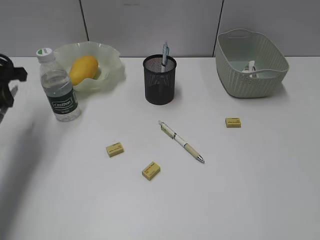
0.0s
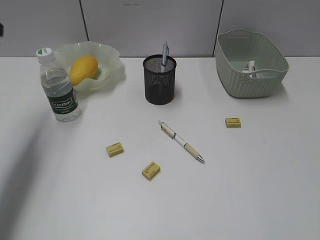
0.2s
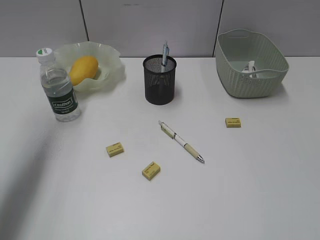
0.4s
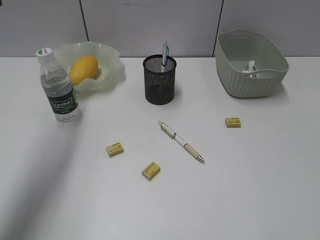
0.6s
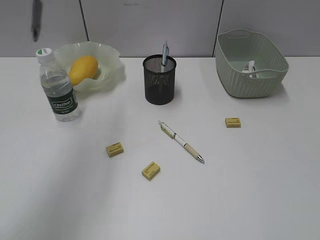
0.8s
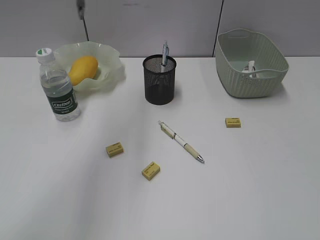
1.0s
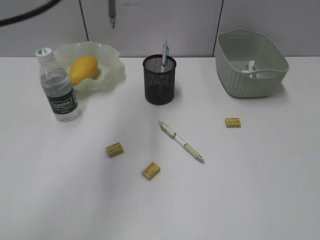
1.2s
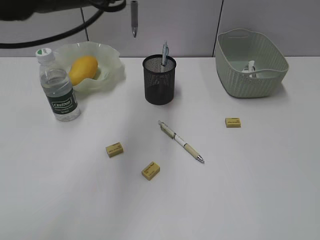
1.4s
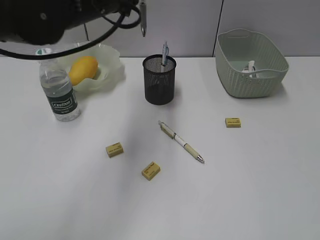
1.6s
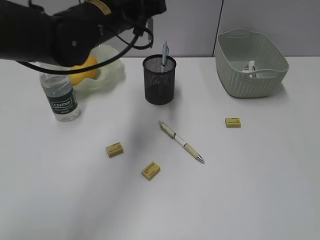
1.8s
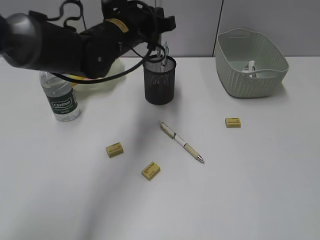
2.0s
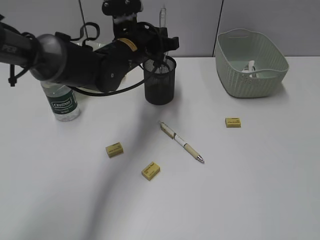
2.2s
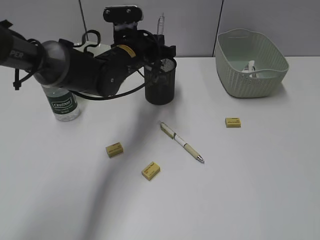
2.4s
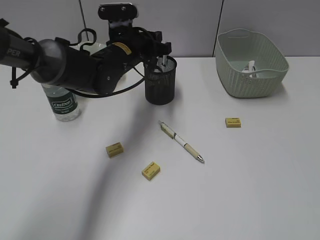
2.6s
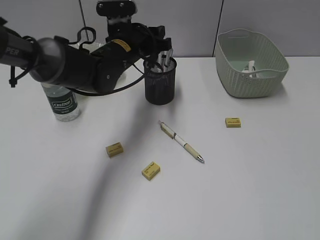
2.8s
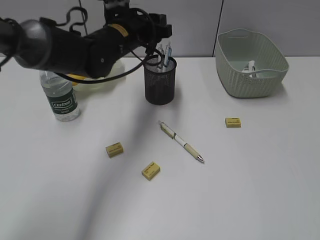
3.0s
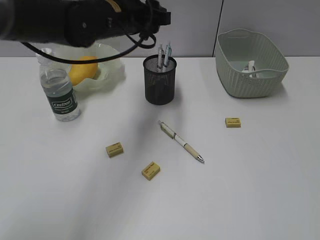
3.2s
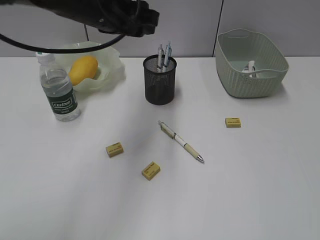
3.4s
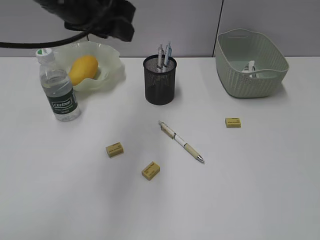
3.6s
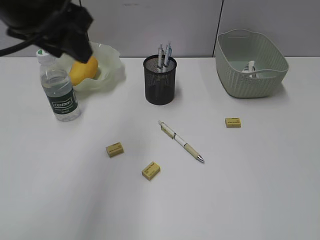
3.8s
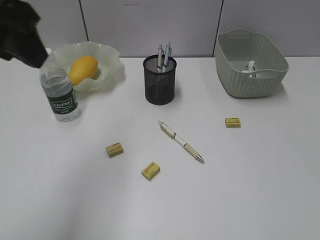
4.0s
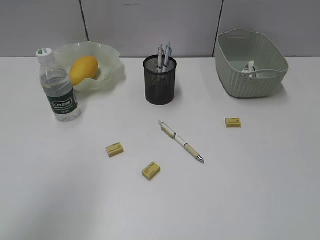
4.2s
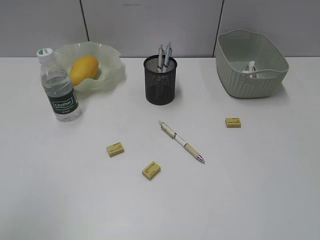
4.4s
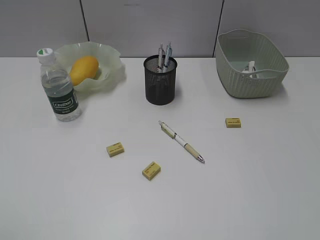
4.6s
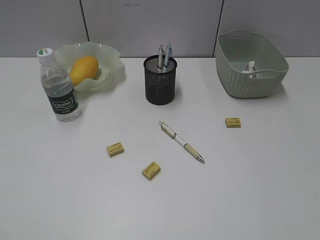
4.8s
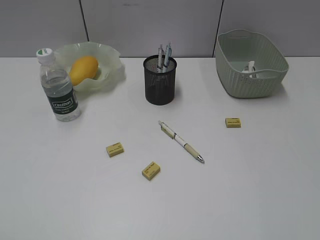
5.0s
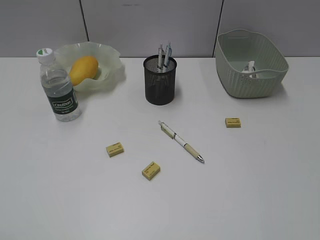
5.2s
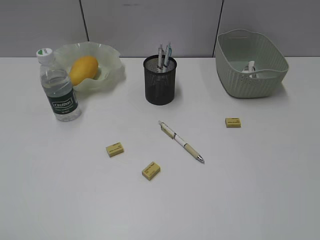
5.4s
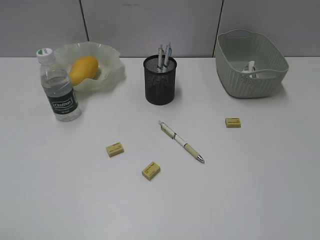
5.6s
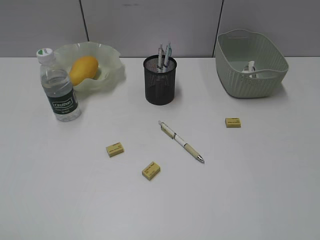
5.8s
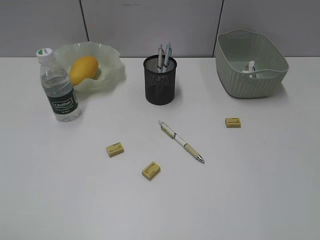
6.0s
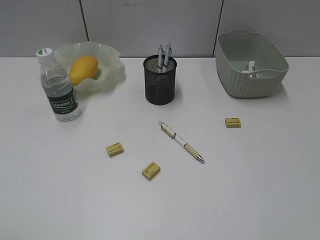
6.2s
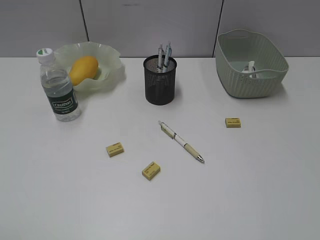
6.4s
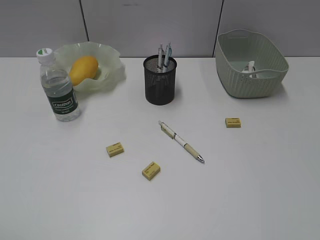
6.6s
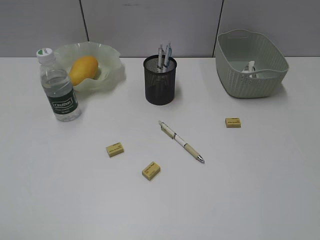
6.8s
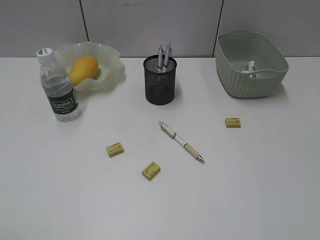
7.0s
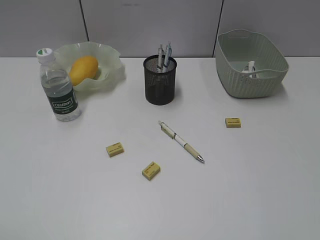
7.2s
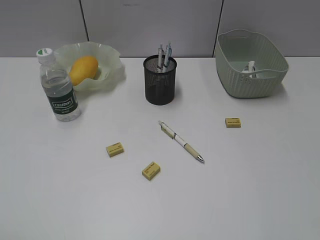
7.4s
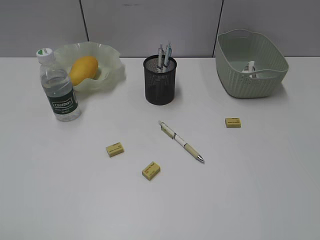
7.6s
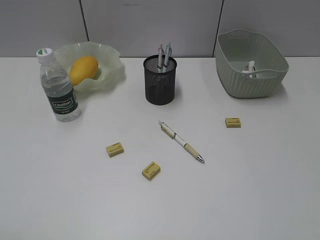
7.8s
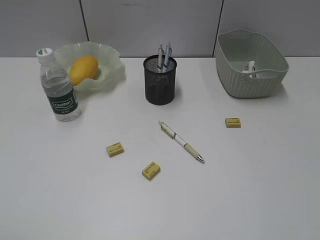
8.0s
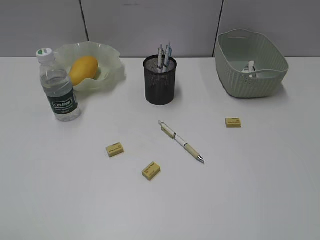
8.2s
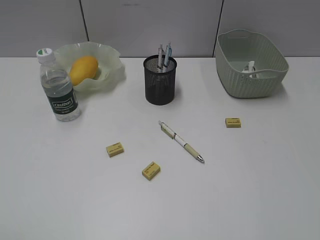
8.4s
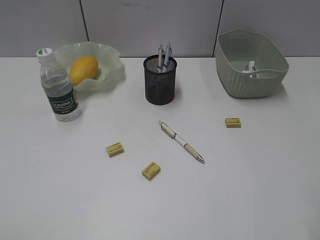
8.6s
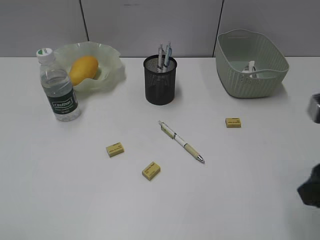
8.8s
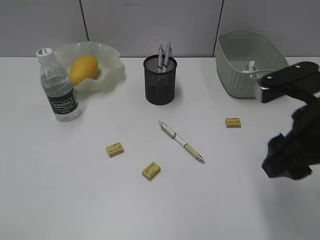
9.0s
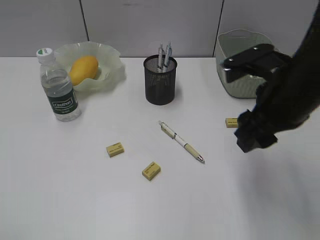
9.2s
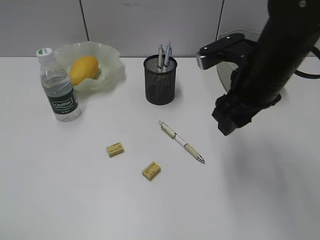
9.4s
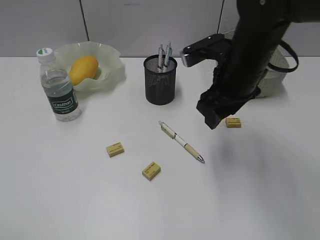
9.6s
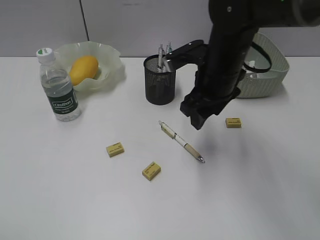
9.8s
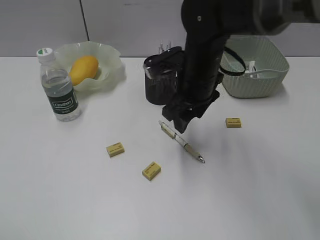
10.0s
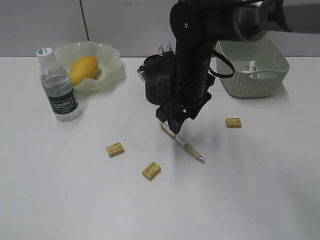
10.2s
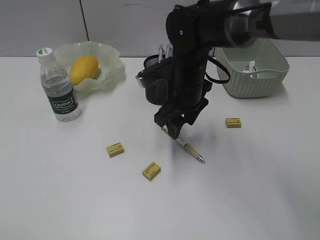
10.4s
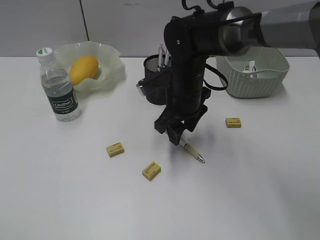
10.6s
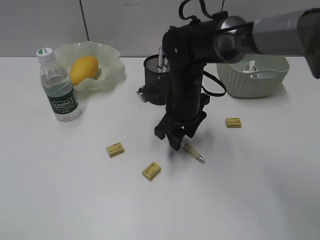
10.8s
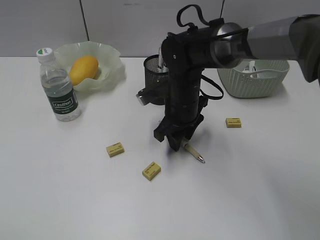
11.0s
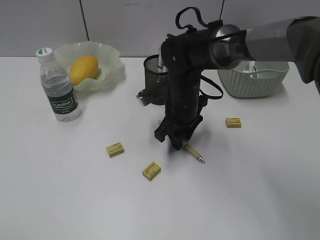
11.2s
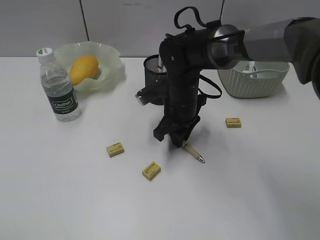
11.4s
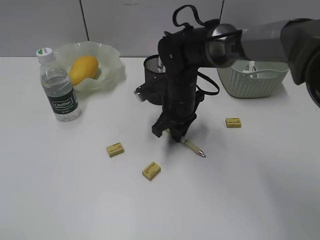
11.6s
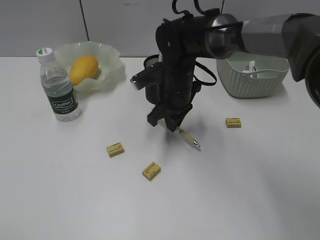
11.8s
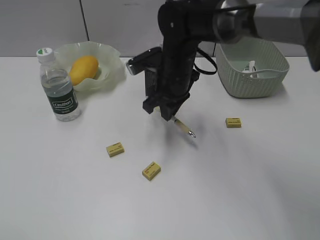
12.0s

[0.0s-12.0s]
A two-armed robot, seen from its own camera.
Step, 0.0s to 2.8s: Place the gray pen in pen holder with left gripper.
Step, 3.0s to 11.6s: Grasp the yellow pen with right gripper.
0.0s to 1.6s: The left gripper shifts approximately 20 cm to the right.
1.6s to 3.0s: The left gripper shifts about 10 cm downward and forward, and opens up.
3.0s to 4.4s: The left gripper is displaced backward, to the left and upward by about 50 cm.
6.0s to 7.6s: Both grippers stay about where they are.
7.6s to 9.0s: The right gripper heads forward and to the left, covering roughly 20 cm.
9.0s to 10.4s: The right gripper travels forward, to the left and downward by approximately 25 cm.
10.4s to 12.0s: The right gripper closes.

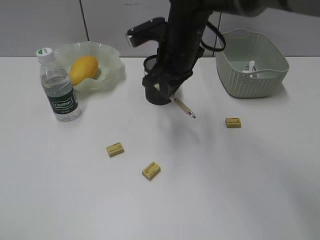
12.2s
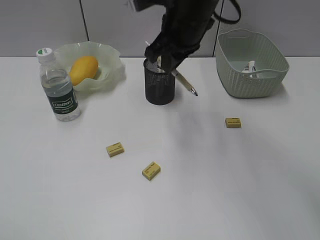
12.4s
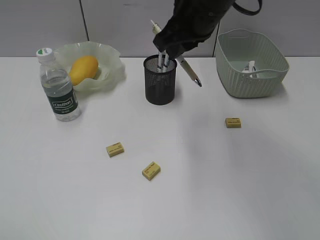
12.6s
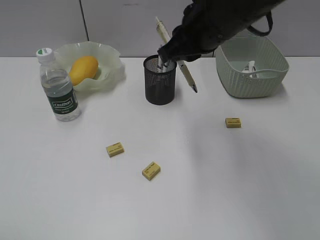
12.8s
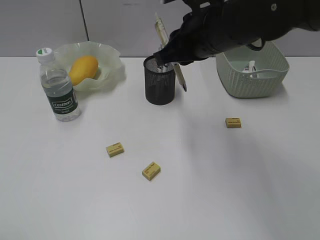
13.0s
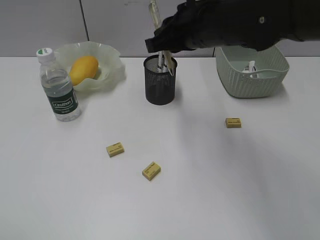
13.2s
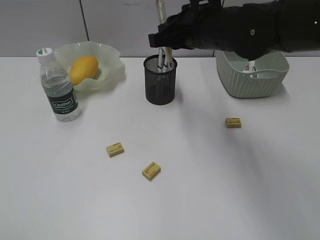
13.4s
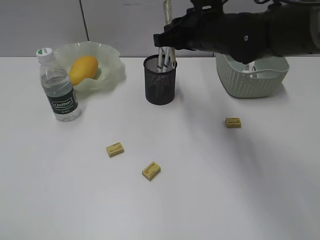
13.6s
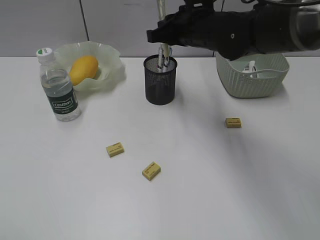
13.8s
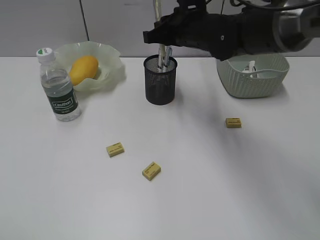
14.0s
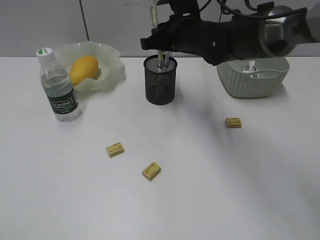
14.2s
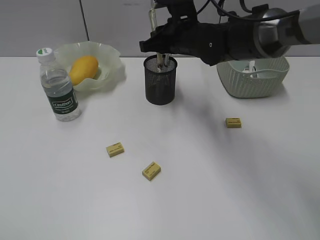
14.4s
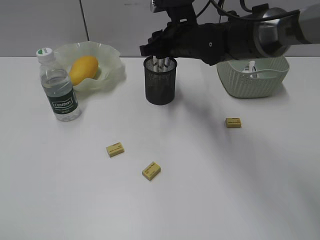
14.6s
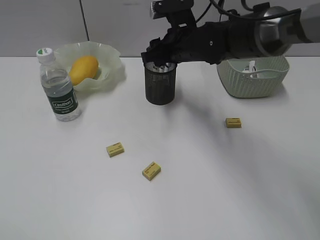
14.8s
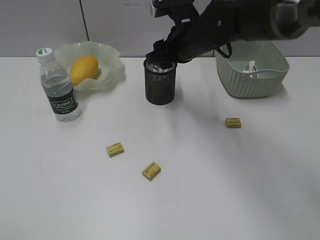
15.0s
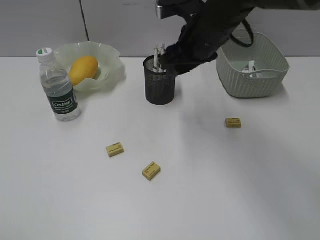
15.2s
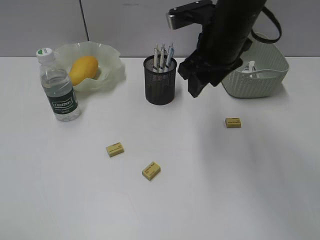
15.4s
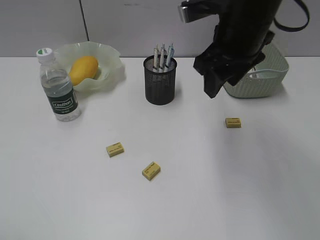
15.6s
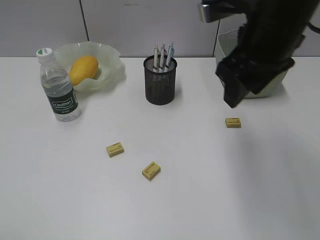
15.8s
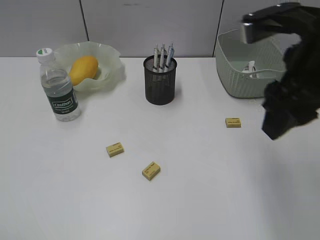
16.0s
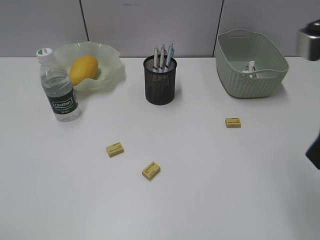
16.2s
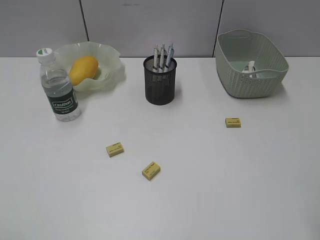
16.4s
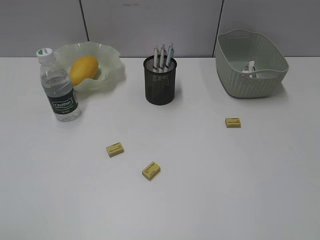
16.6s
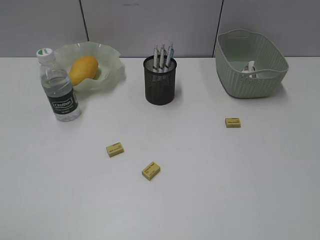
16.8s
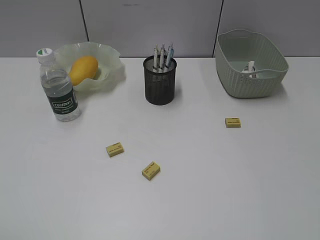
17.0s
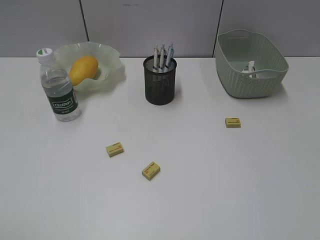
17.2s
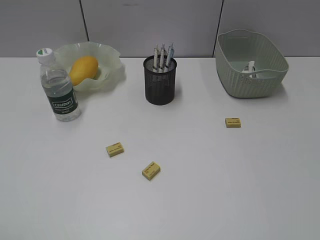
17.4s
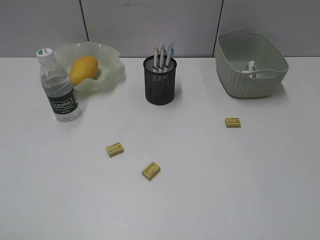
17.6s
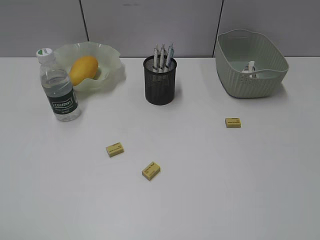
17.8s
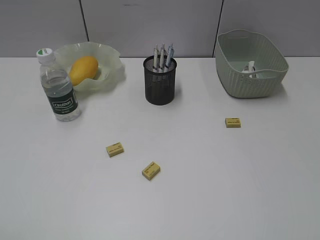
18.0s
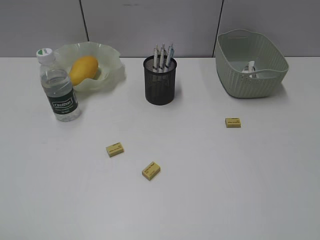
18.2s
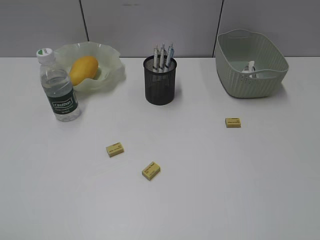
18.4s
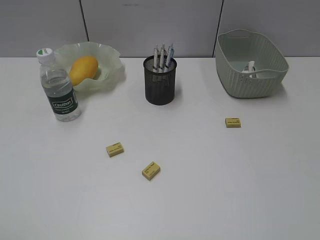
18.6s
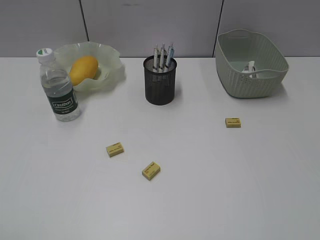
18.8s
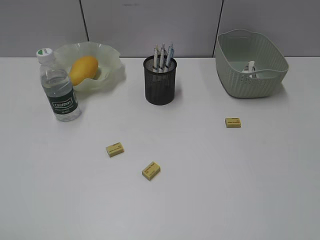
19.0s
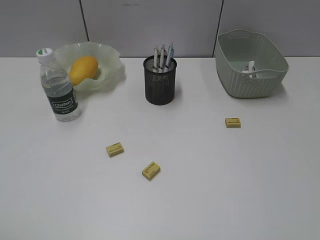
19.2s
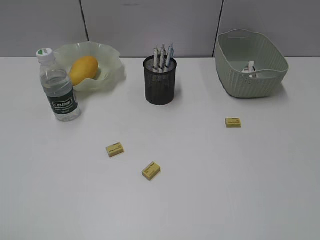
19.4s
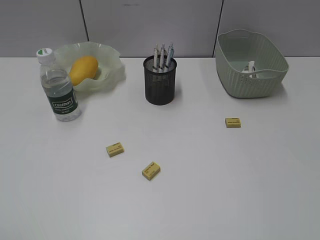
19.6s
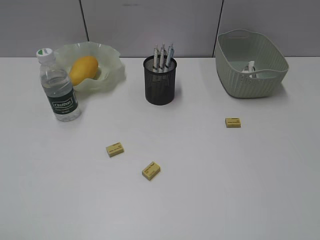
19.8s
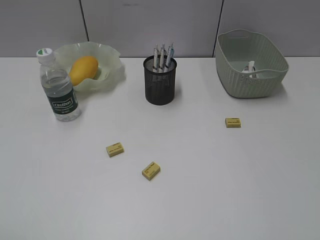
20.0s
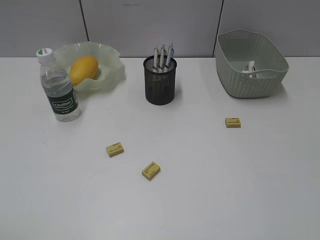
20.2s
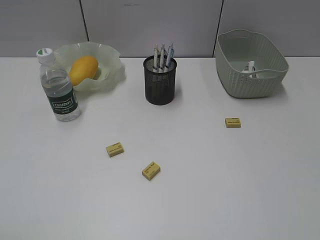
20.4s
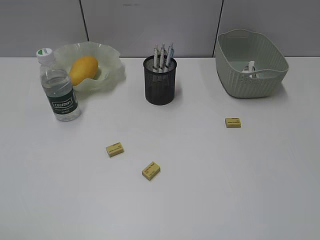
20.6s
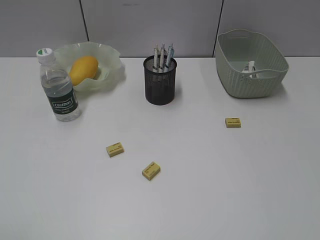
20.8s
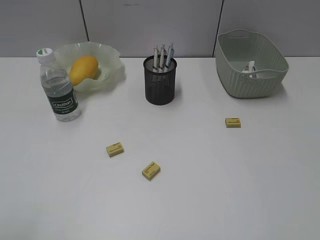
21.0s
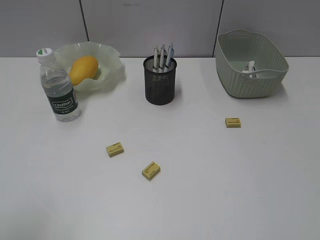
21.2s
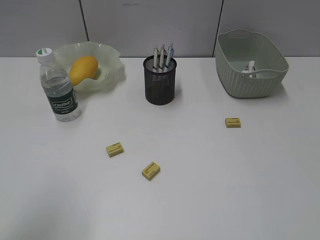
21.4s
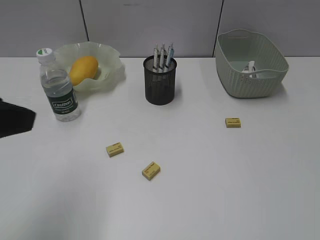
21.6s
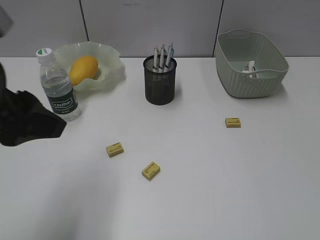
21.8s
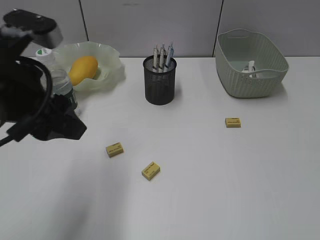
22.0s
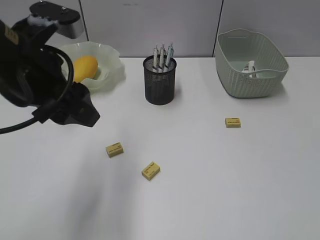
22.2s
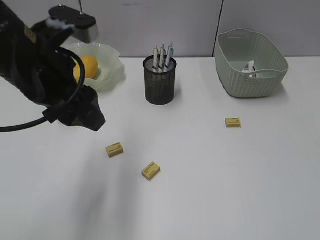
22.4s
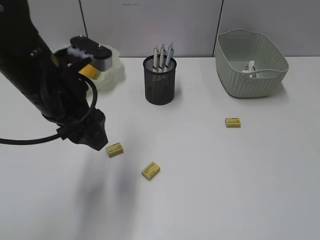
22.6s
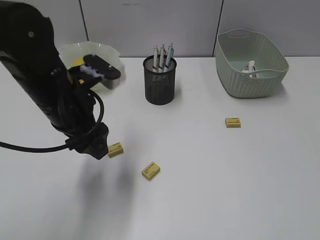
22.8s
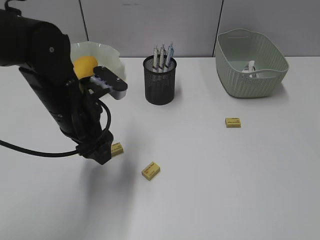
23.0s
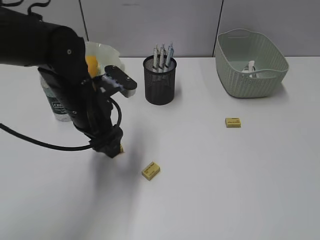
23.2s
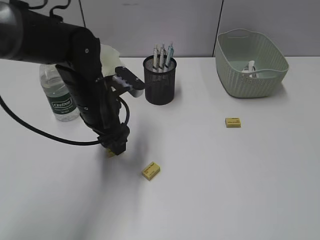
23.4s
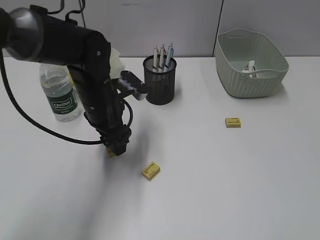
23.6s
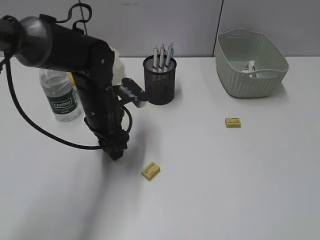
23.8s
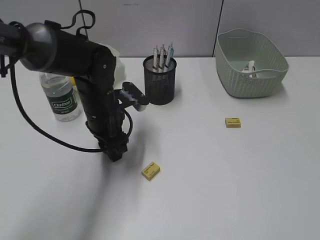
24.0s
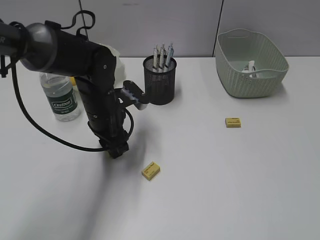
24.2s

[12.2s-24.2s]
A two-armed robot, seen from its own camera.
Step, 12.2s to 14.8s: Place the yellow pen in pen holder with right gripper.
12.2s to 13.8s: The right gripper reaches roughly 5 cm backward, then returns.
13.8s to 15.2s: The right gripper opens.
15.2s to 16.6s: The right gripper shifts about 35 cm backward and to the right.
18.2s to 19.8s: Neither gripper changes place.
21.2s to 22.6s: The left gripper shifts about 25 cm forward and to the right.
22.6s to 24.2s: The left gripper travels downward and forward by approximately 15 cm.
